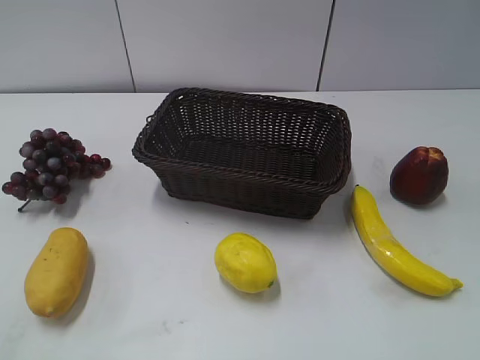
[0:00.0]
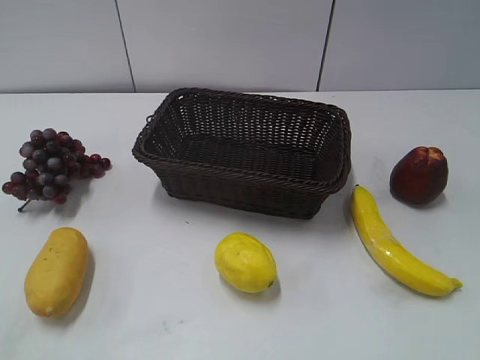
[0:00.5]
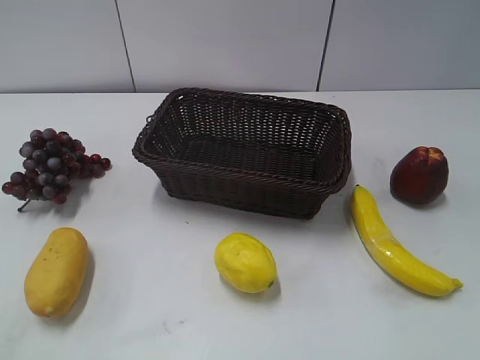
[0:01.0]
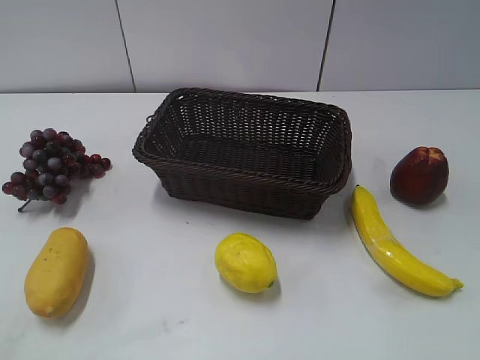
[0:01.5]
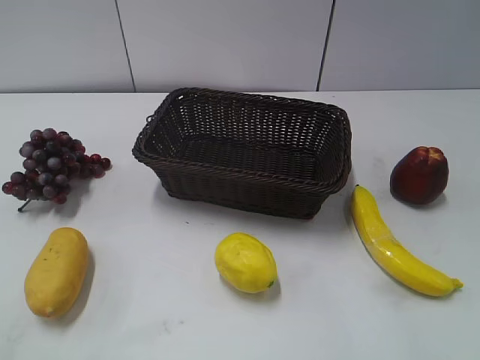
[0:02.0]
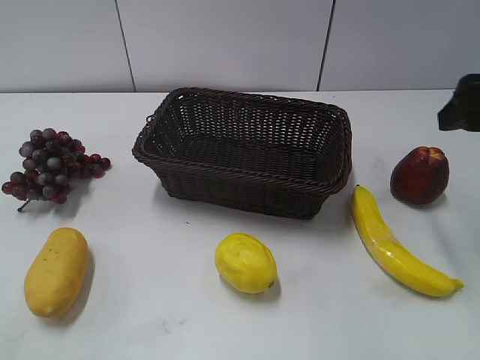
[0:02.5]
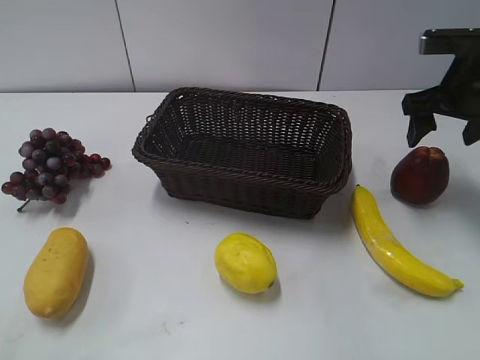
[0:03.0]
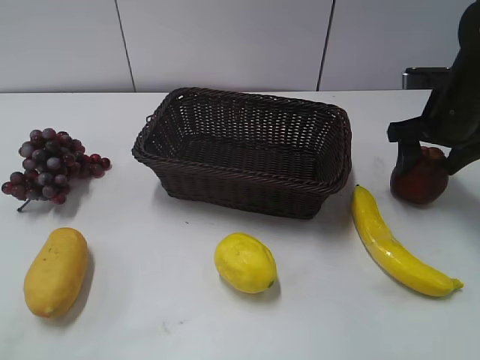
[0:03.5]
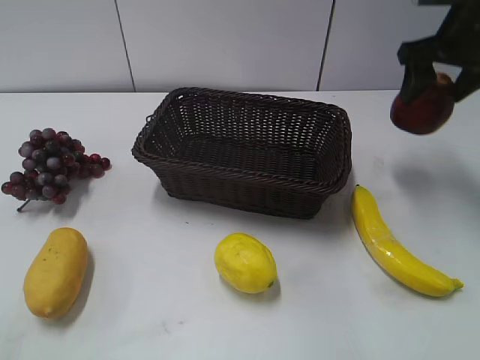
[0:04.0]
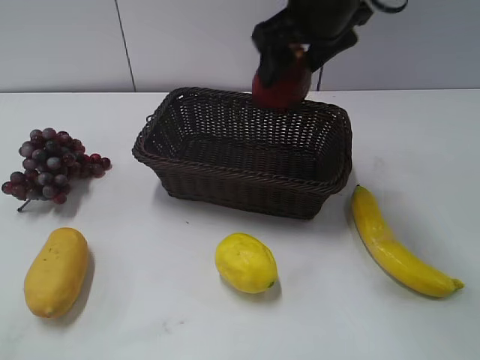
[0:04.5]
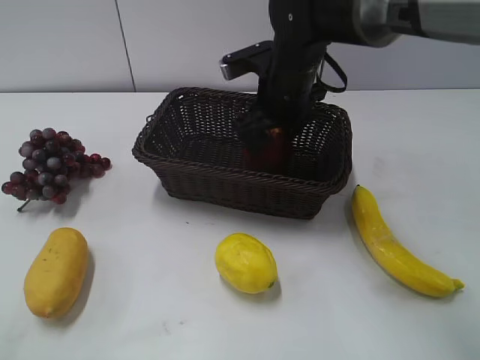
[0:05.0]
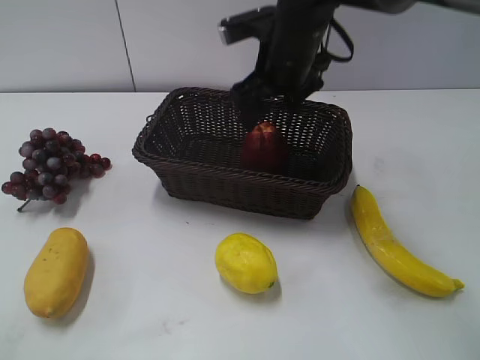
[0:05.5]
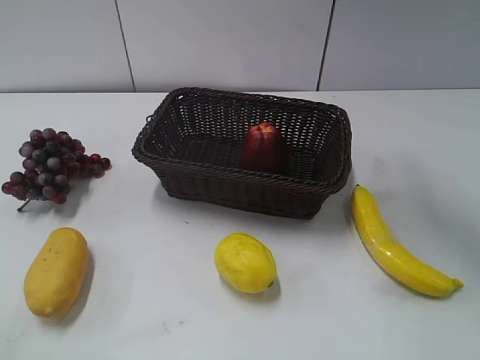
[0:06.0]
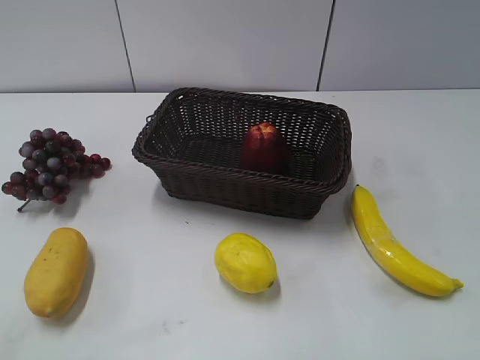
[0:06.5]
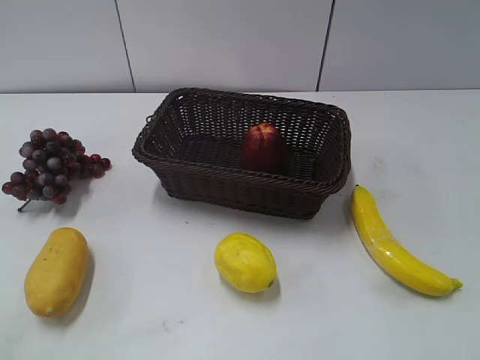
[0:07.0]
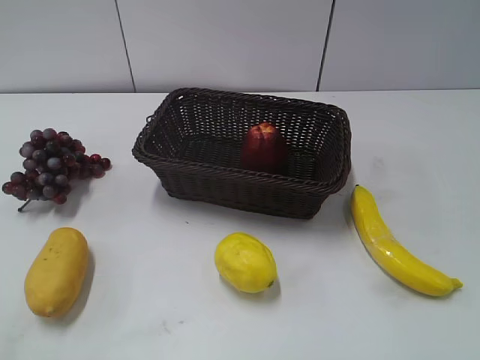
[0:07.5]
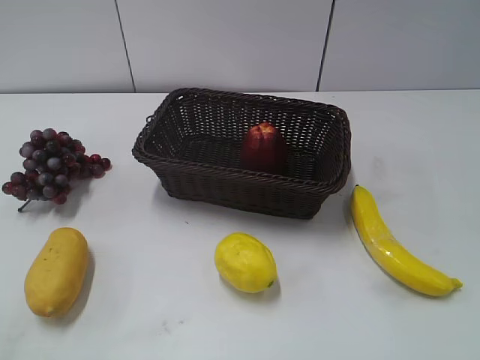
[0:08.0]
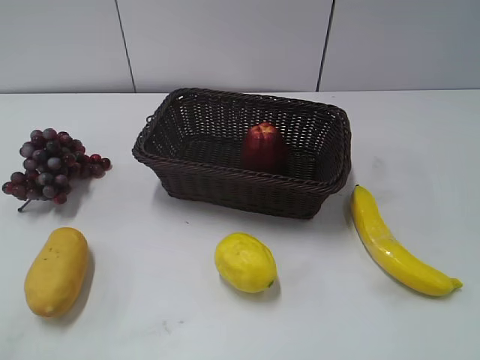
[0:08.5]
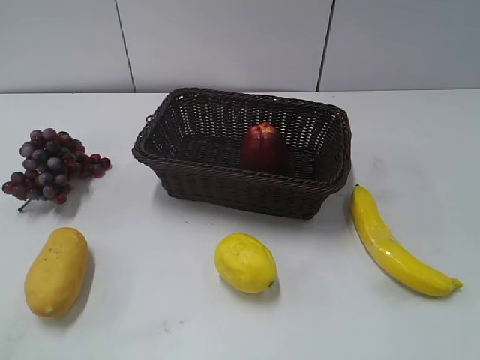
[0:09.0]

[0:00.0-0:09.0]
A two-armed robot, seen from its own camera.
Step, 0:02.5 to 0:03.5: Grasp the apple with right gripper.
Step, 0:04.0 to 0:05.0: Place the apple in the basket with right gripper.
0:02.0 to 0:04.5: The right gripper travels forward and to the left by about 35 cm.
0:04.5 to 0:07.0: The right gripper travels backward and to the right by approximately 40 cm.
